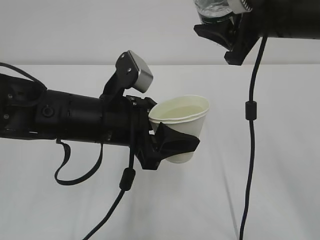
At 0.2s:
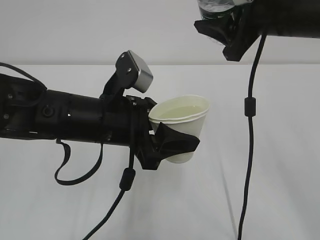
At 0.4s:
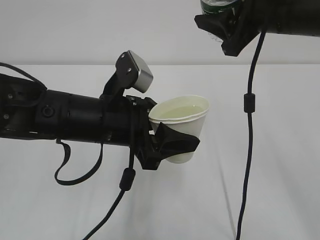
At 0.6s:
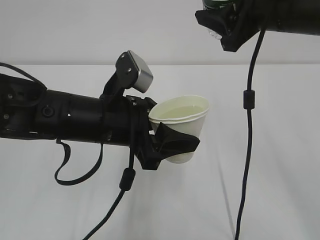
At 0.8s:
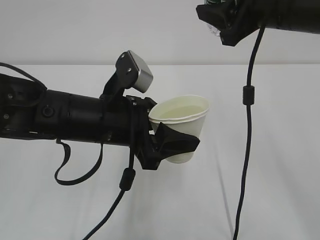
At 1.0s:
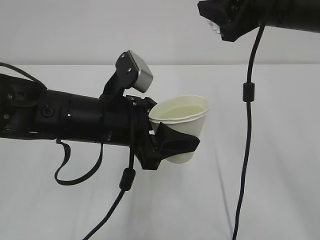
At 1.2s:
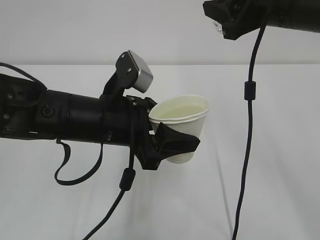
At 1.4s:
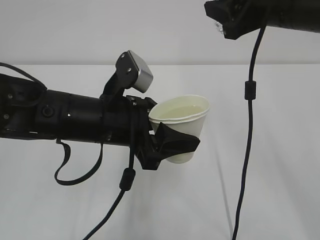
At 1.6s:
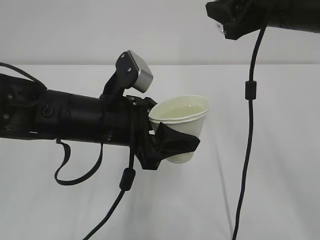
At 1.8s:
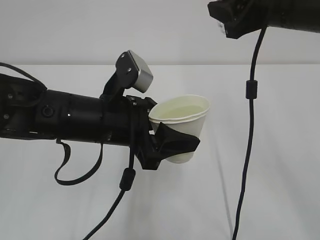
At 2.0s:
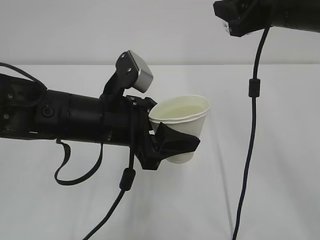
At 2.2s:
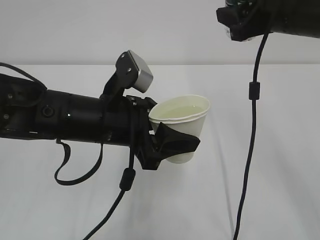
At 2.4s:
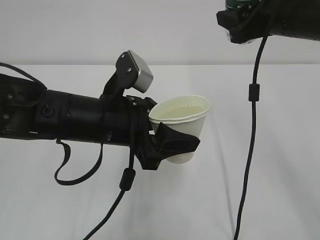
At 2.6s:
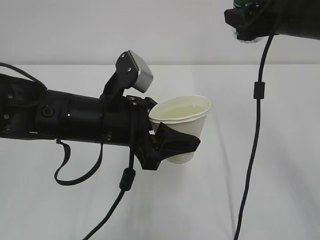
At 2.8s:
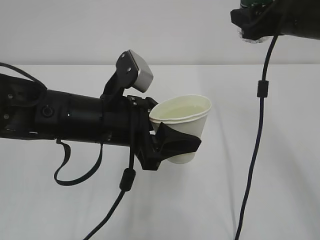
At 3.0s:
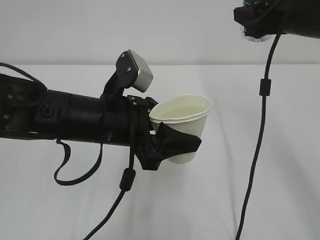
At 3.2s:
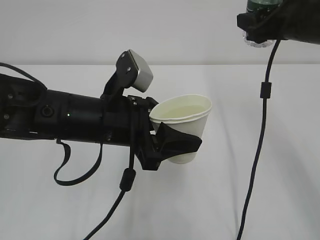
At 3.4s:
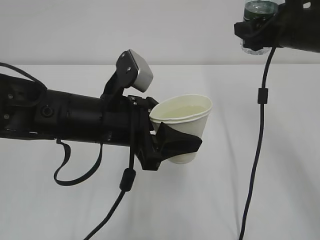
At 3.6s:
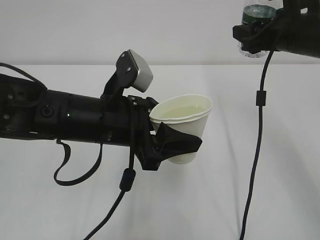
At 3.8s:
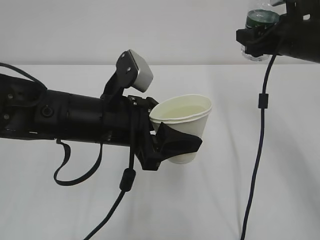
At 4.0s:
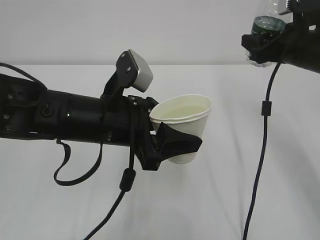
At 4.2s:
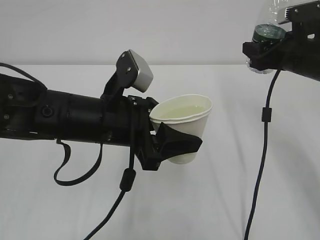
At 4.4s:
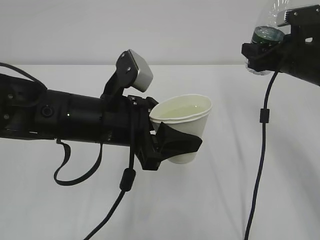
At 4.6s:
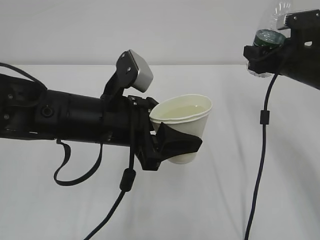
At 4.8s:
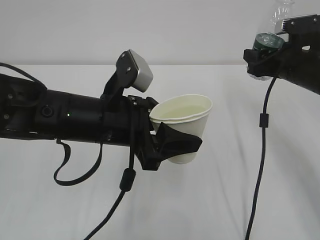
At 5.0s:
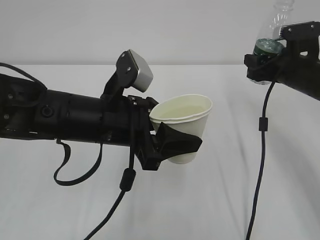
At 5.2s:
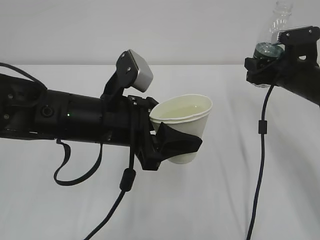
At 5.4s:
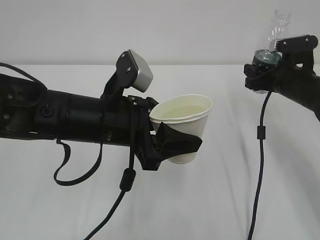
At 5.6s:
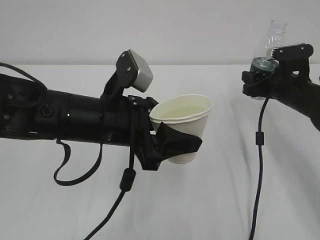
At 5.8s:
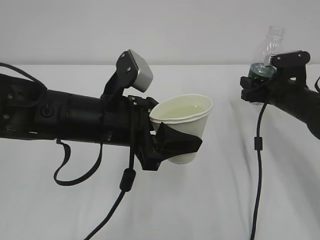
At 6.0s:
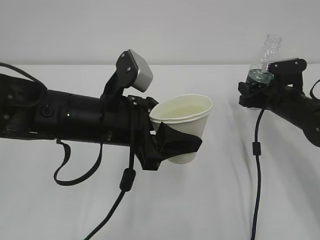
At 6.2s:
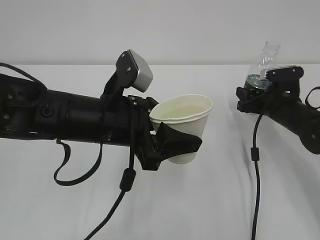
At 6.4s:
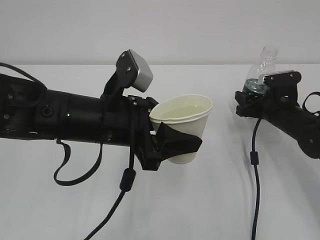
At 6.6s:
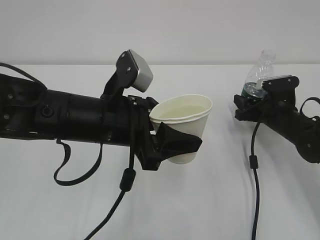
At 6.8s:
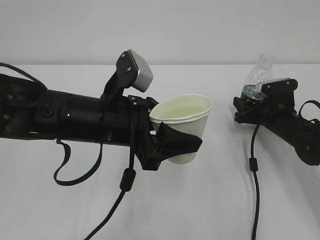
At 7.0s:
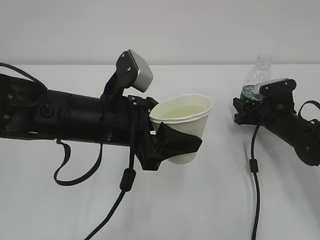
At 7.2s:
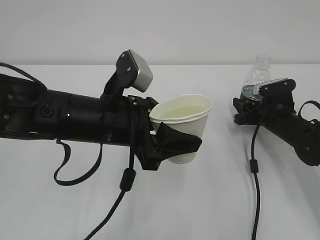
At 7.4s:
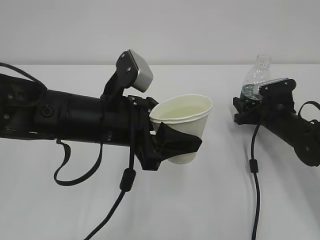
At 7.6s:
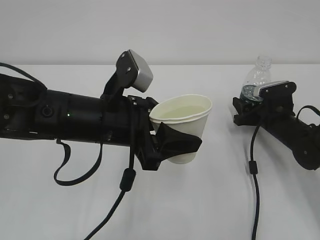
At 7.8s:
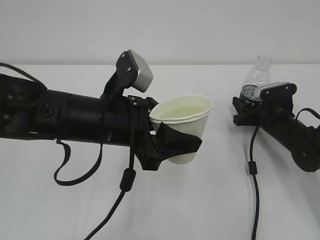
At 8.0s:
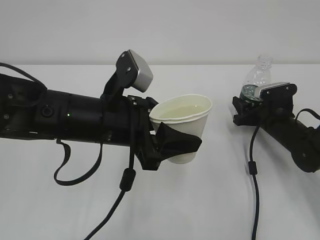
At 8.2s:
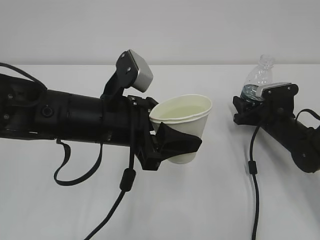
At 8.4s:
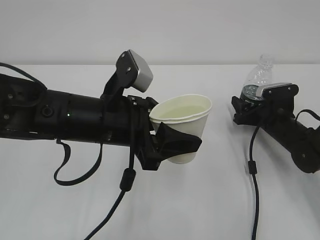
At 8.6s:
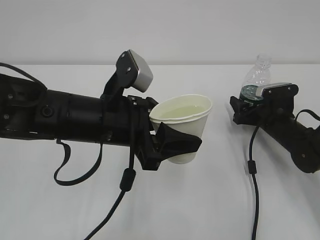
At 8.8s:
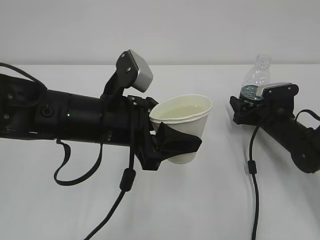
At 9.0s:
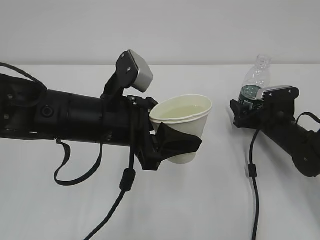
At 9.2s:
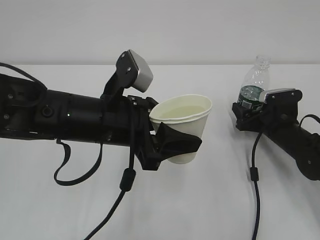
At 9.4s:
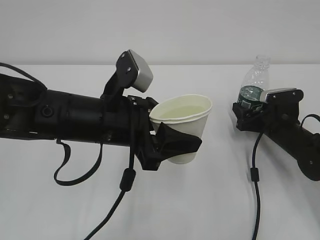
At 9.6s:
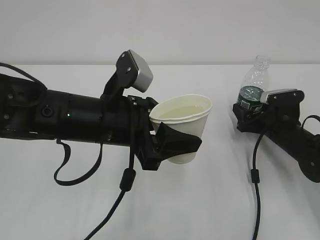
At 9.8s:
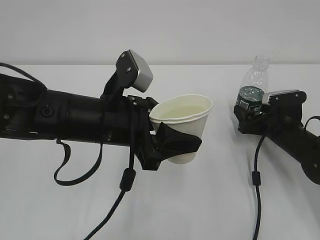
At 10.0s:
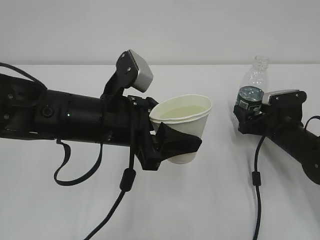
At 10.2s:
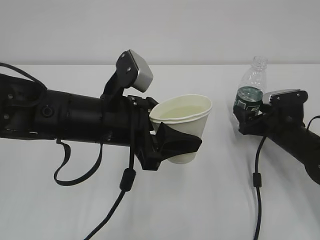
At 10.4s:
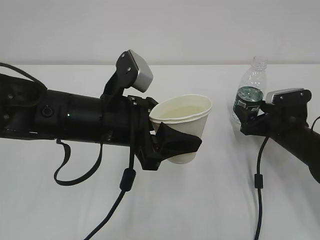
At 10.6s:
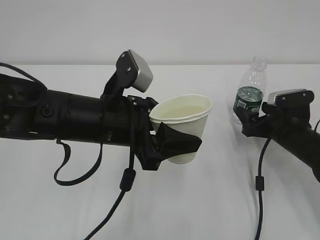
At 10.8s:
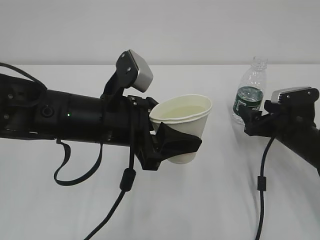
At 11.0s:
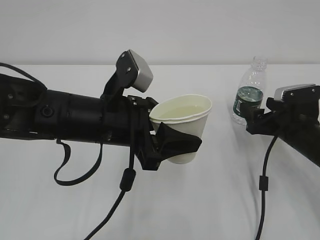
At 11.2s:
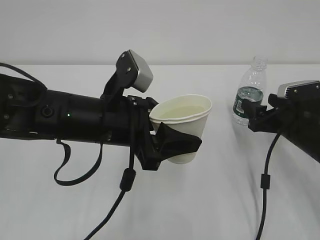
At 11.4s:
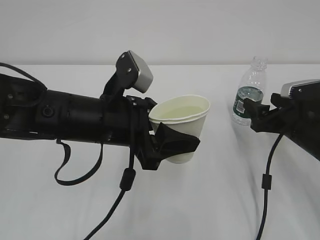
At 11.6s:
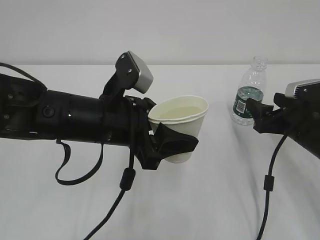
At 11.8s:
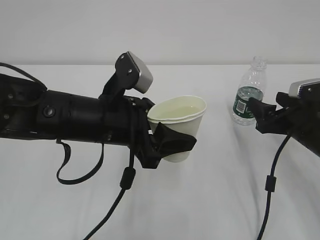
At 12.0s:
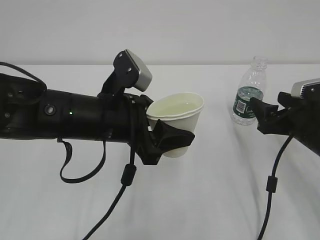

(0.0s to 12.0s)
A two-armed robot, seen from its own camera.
1.6s - 3.0s: The right gripper ends up about 5 cm from where it was.
3.0s - 4.4s: The right gripper shifts some 10 cm downward.
4.4s - 6.0s: The right gripper shifts some 10 cm downward.
6.0s - 7.6s: The right gripper moves downward, about 5 cm.
7.6s - 9.0s: The right gripper opens its fingers.
9.0s - 10.4s: The grippers move only a little.
10.4s - 12.0s: The right gripper is displaced upward and backward by roughly 10 cm.

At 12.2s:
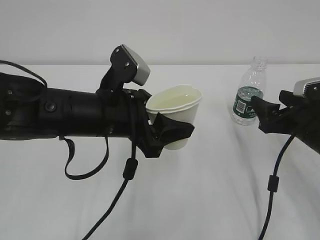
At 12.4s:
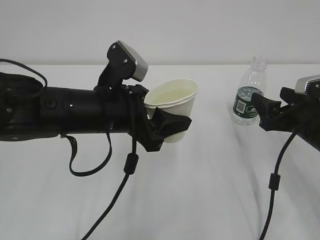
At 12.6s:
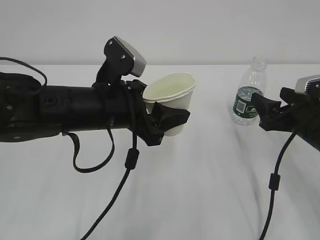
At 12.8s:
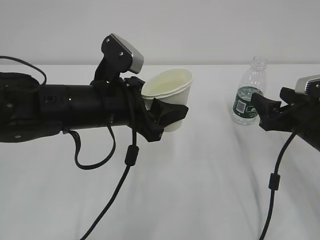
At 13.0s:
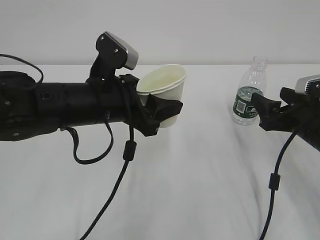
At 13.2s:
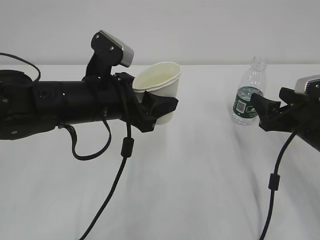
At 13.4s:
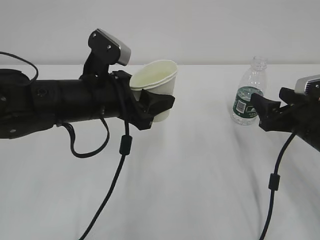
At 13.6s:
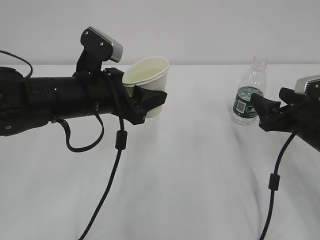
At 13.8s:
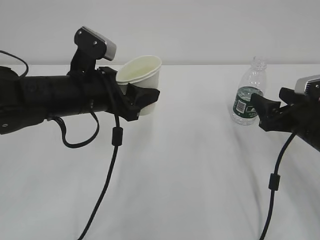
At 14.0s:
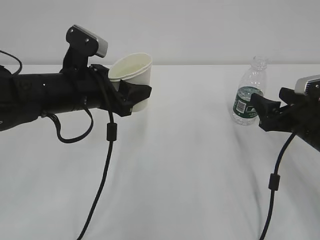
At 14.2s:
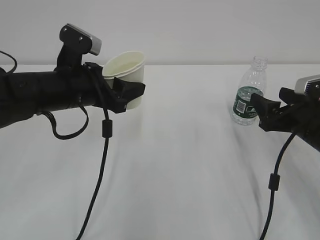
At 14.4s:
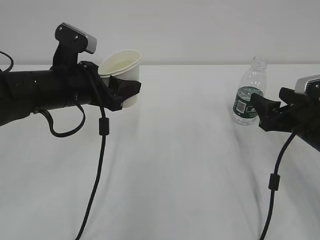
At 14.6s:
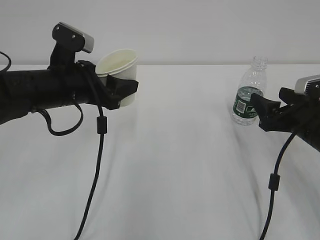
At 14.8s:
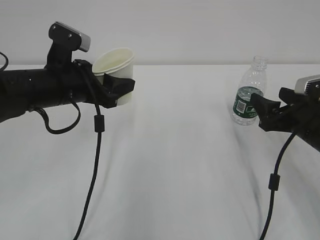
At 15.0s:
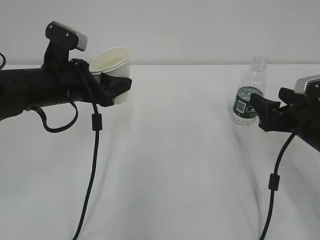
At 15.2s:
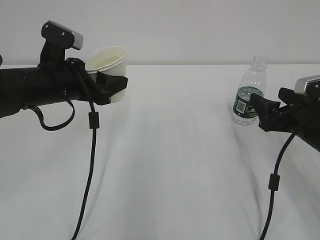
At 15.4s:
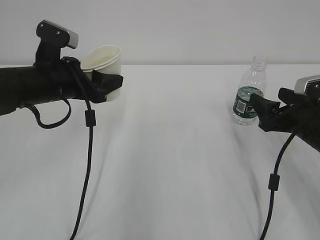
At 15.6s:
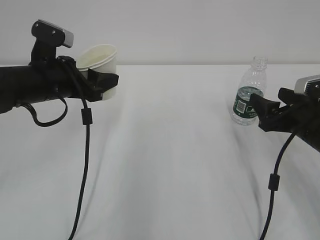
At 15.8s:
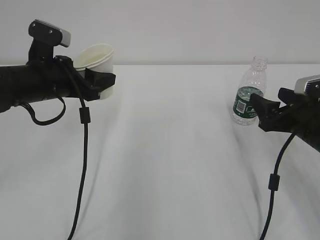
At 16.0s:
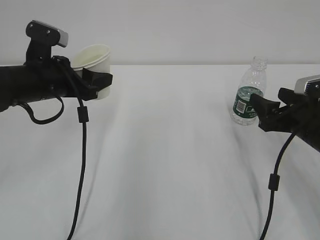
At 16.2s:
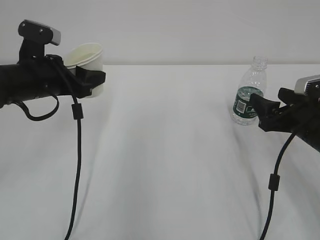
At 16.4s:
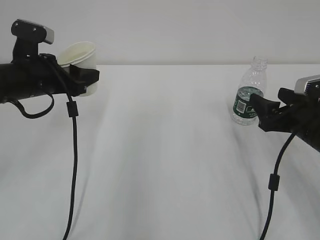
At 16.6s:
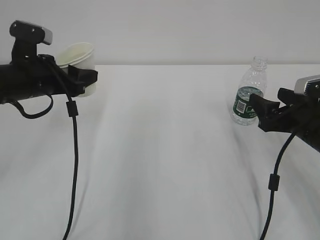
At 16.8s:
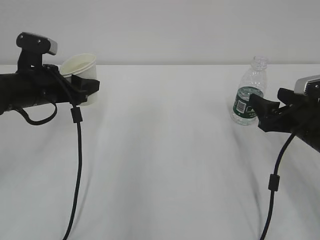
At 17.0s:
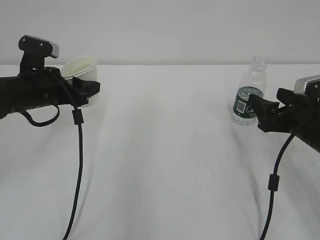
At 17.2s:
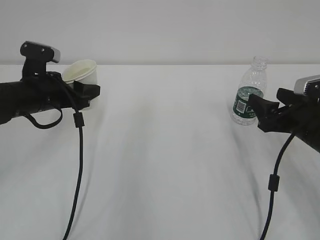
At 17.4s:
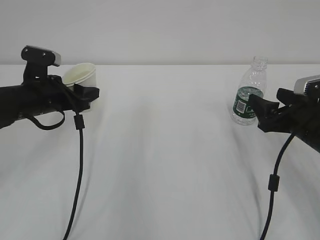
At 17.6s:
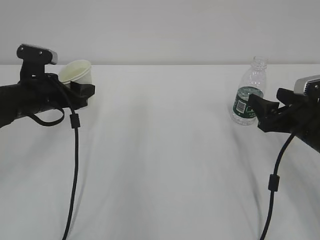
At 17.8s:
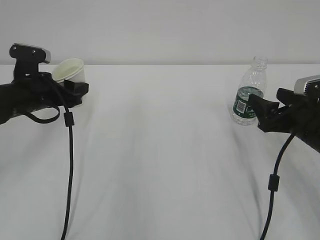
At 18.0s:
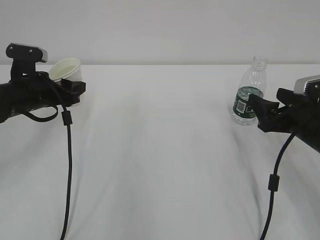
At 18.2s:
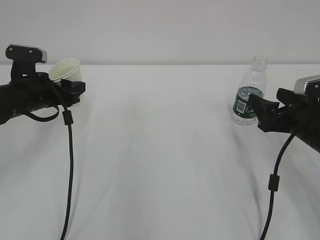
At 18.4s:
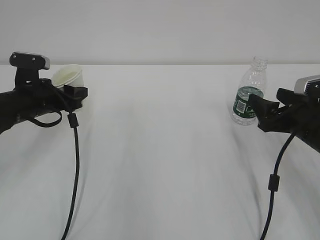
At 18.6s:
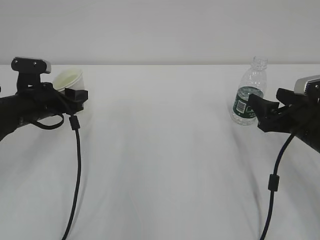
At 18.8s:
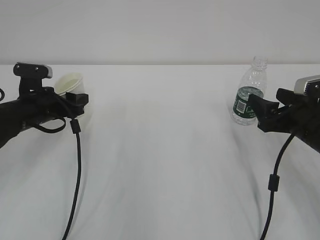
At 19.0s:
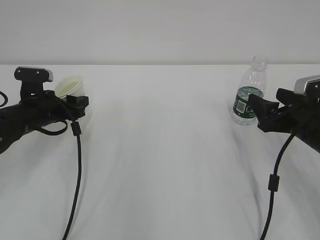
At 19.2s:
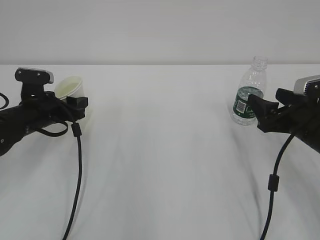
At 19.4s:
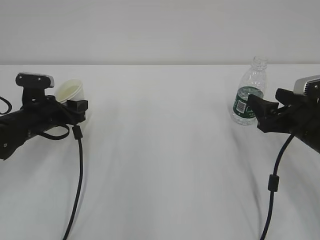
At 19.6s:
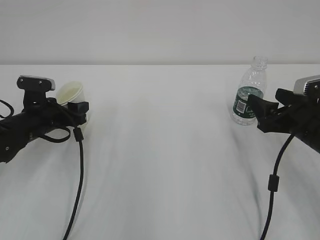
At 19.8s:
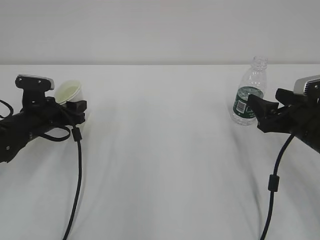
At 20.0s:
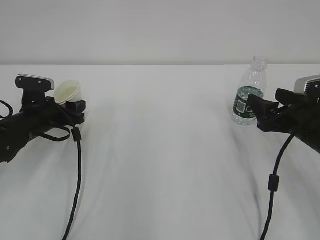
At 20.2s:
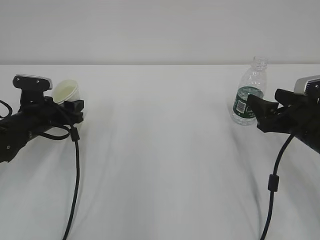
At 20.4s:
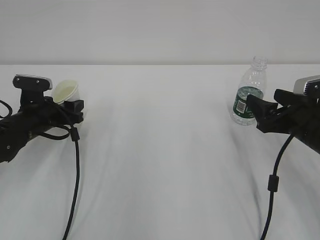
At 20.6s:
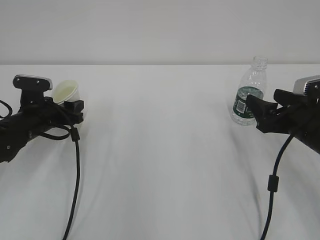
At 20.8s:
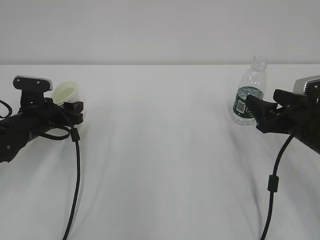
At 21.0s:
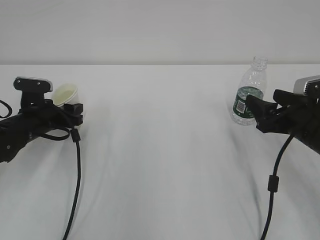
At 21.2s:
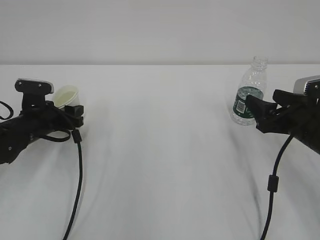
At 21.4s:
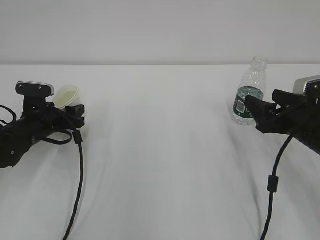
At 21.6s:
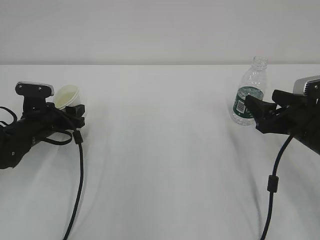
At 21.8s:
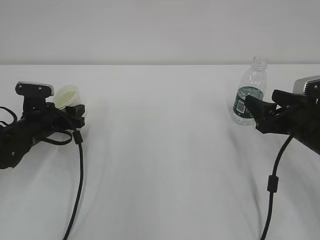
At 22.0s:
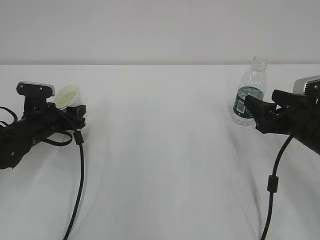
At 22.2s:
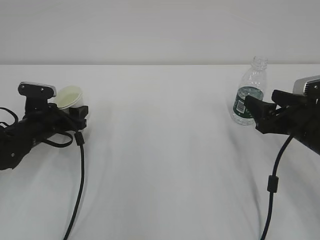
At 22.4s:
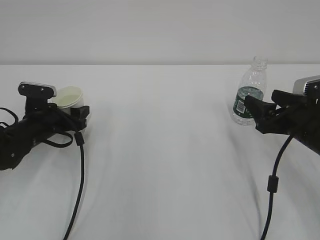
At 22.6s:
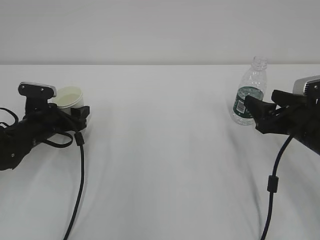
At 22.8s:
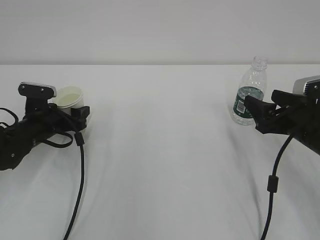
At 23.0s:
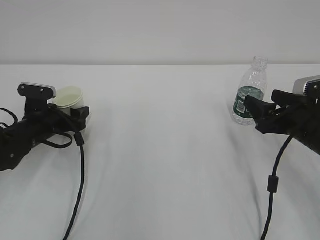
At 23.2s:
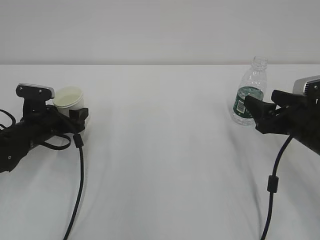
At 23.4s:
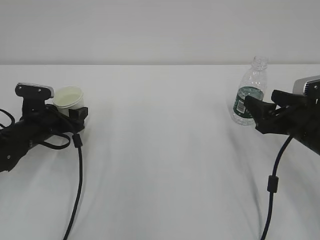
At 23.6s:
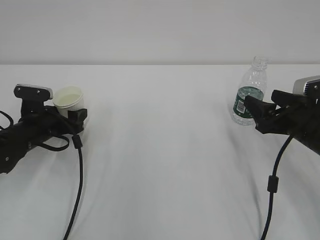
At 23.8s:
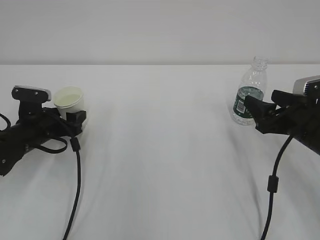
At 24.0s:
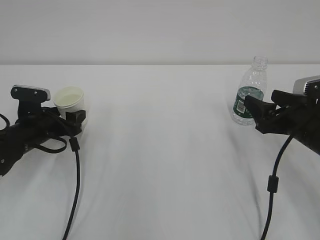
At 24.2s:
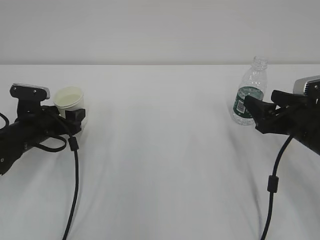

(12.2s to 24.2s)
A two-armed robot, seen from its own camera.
12.2s - 13.8s: The left gripper changes place by about 5 cm.
13.8s - 15.2s: The left gripper is displaced to the left by approximately 5 cm.
15.2s - 16.6s: The left gripper moves to the left, roughly 5 cm.
16.6s - 18.2s: The left gripper ends up some 5 cm from where it was.
18.2s - 19.8s: The left gripper shifts some 5 cm downward.
19.8s - 21.2s: Both grippers stay put.
21.2s - 22.6s: The left gripper opens its fingers.
22.6s - 24.2s: The grippers make only small movements.
